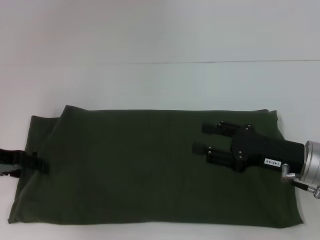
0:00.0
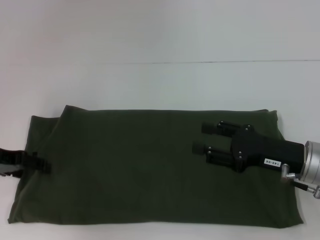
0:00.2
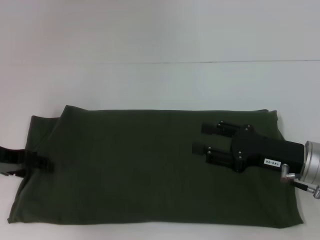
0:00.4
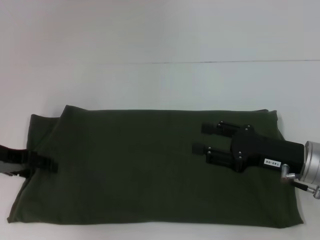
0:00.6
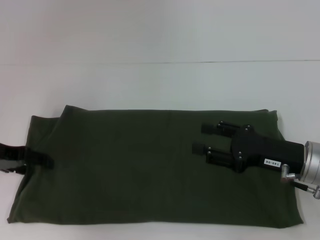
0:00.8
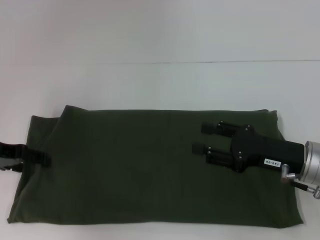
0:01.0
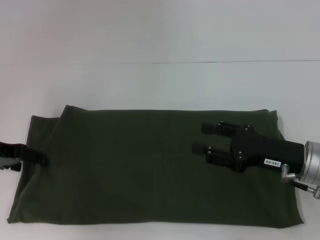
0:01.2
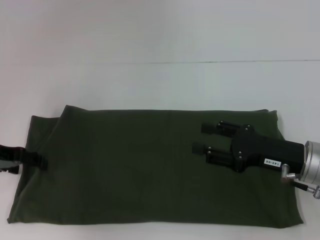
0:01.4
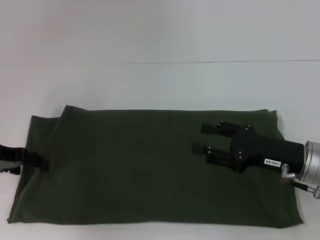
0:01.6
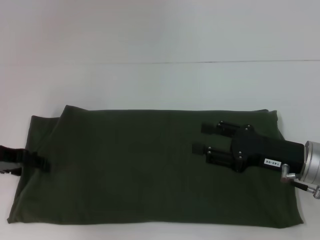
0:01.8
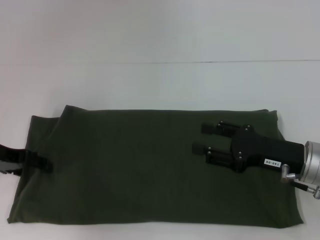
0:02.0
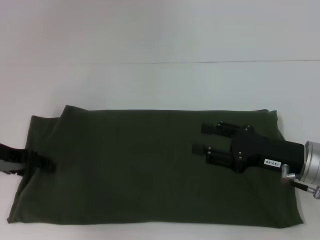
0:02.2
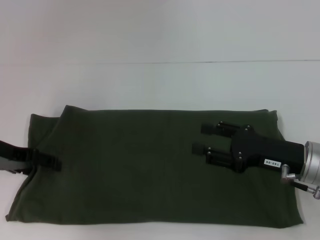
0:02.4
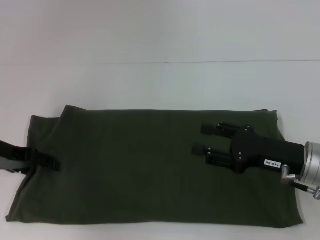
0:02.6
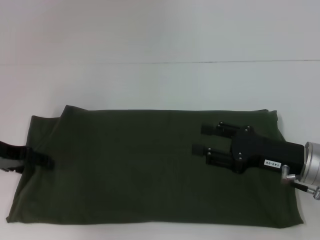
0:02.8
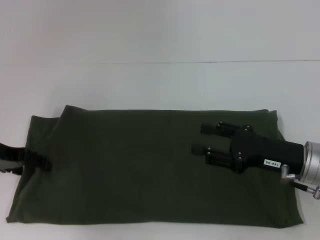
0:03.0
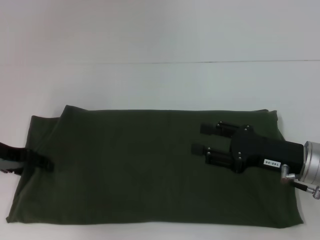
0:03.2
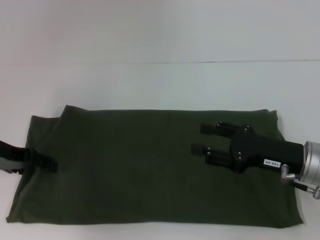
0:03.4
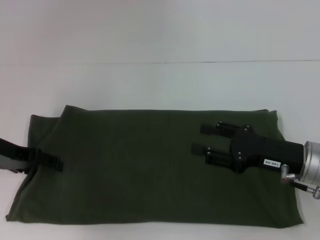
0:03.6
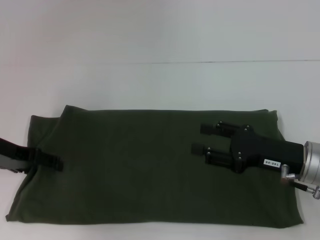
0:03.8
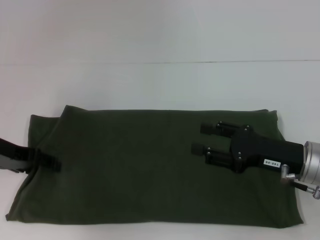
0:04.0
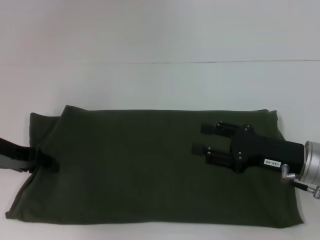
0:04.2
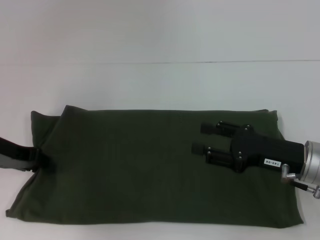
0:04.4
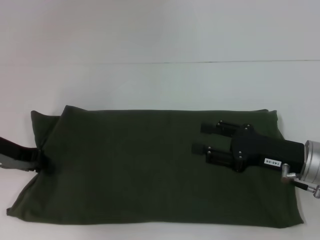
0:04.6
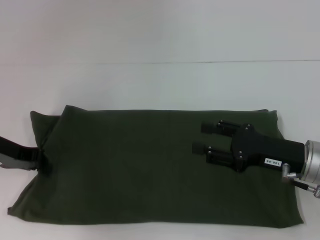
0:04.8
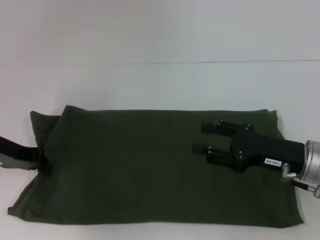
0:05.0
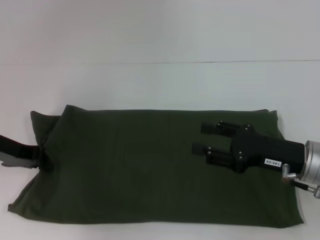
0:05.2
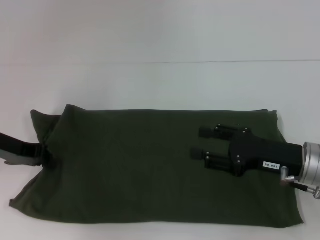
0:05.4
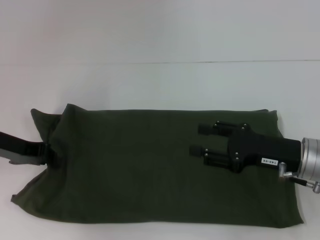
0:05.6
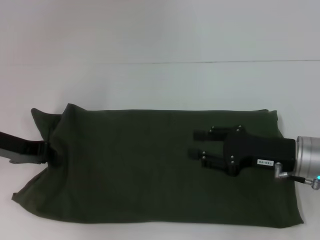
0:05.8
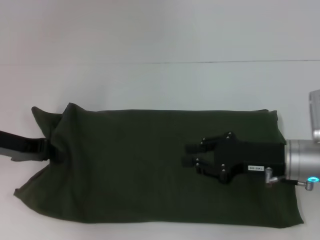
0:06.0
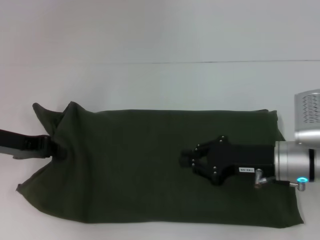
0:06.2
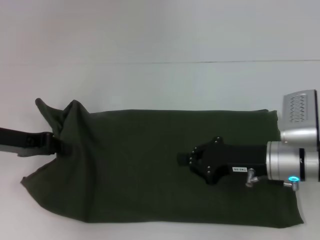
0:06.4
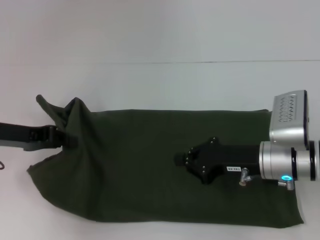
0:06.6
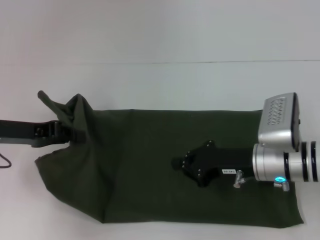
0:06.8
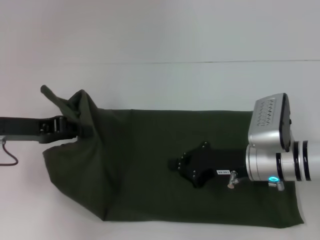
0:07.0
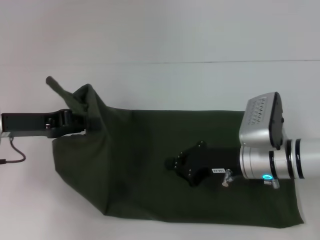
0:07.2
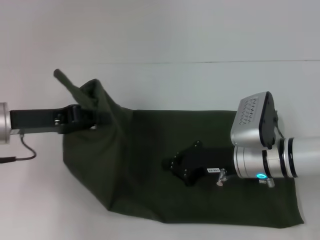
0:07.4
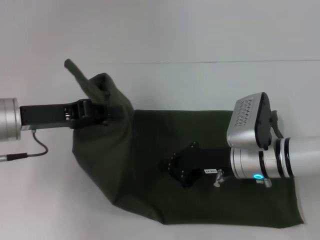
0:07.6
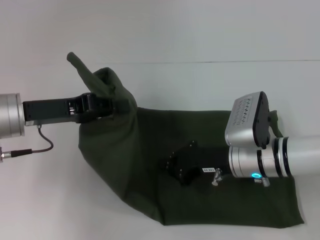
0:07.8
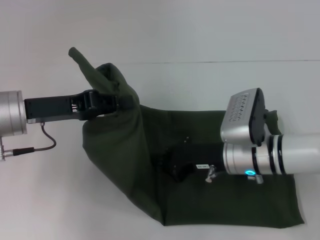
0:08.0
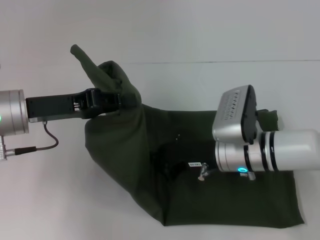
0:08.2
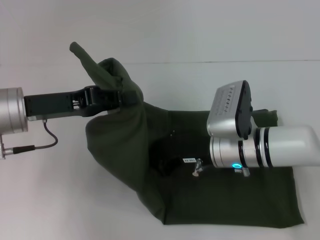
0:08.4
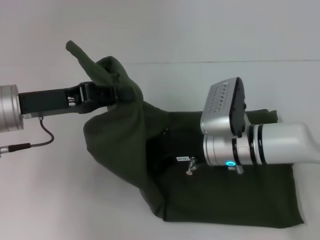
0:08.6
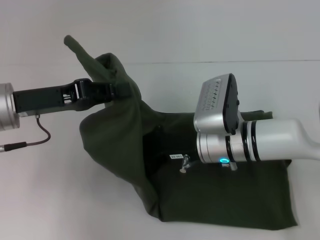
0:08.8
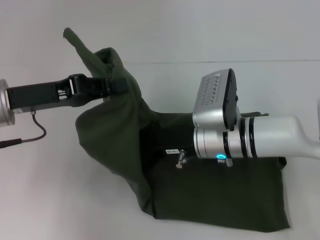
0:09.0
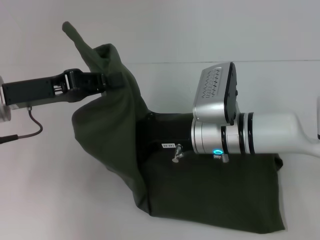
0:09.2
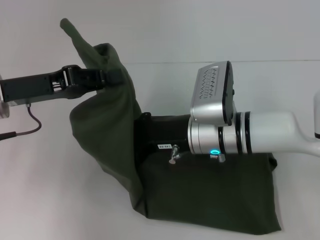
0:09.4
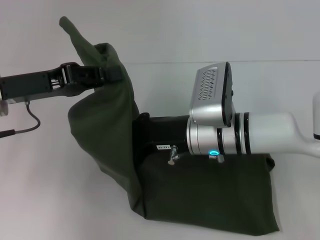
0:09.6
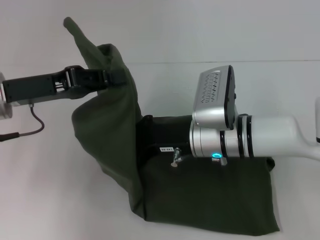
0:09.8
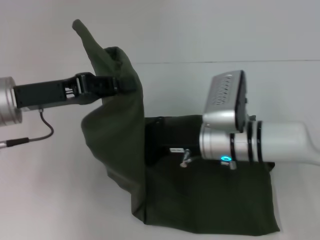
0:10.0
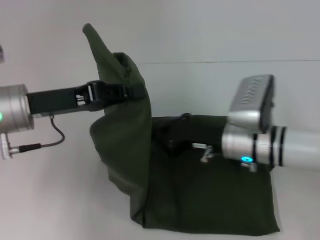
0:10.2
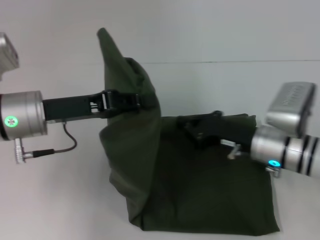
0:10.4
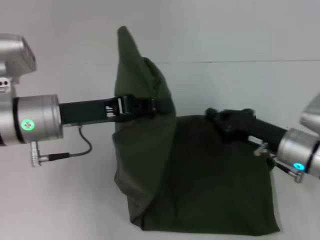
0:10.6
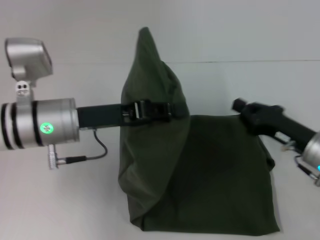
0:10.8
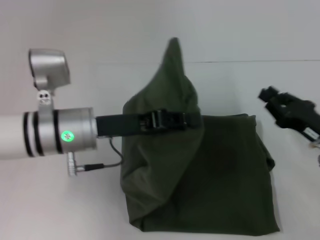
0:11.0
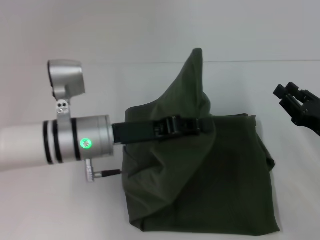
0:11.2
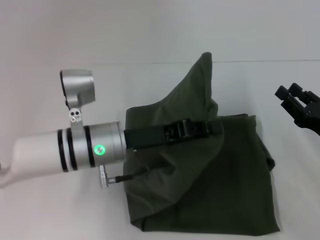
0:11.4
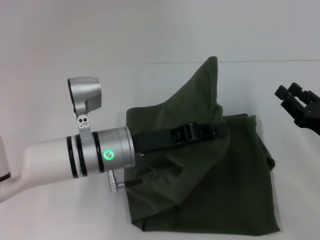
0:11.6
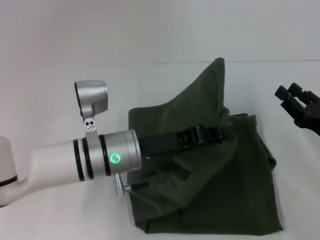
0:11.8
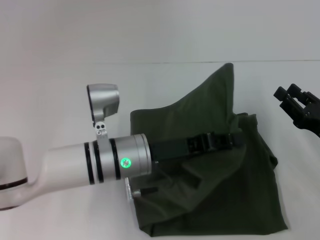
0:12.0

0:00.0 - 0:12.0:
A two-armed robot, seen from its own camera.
0:00.0 - 0:01.6: The two grippers keep their place.
0:01.6 - 0:03.0: Neither gripper changes place.
0:03.0 - 0:04.4: Both grippers stay put.
0:04.4 - 0:06.0: The left gripper closes its fingers.
0:06.0 - 0:07.6: The left gripper goes some 5 cm to the right. The right gripper heads to the left, covering about 5 cm, and closes.
0:07.6 - 0:09.0: The right gripper moves to the left, roughly 5 cm.
0:09.0 - 0:10.4: The right gripper travels to the right by roughly 10 cm.
0:10.4 - 0:12.0: The left gripper heads to the right and downward, covering approximately 15 cm, while the right gripper travels to the right and backward by about 15 cm, and opens.

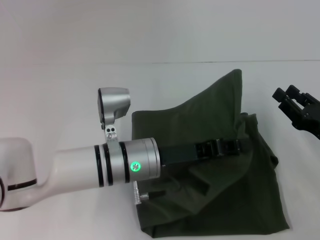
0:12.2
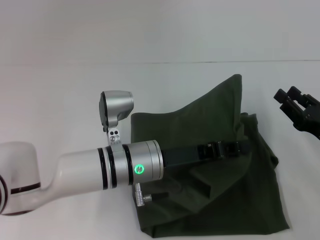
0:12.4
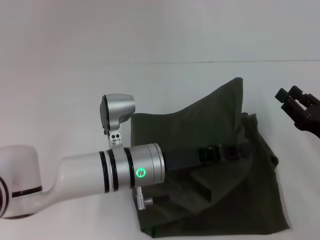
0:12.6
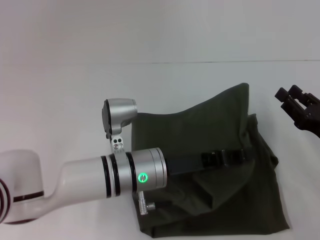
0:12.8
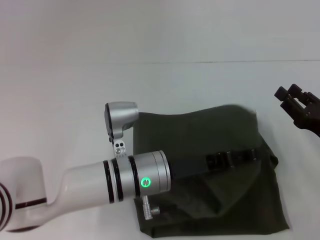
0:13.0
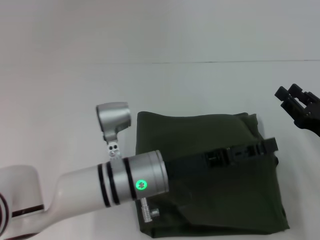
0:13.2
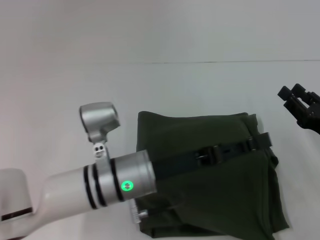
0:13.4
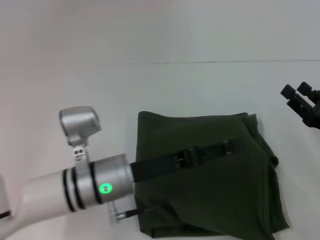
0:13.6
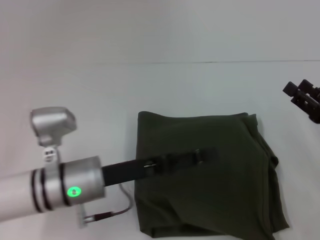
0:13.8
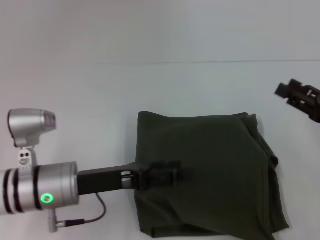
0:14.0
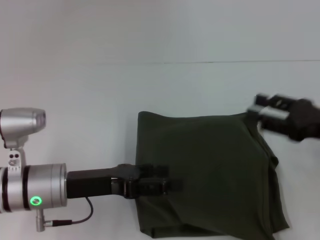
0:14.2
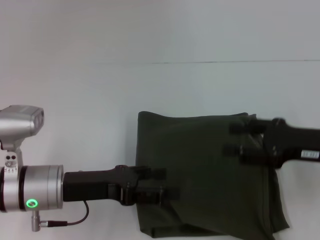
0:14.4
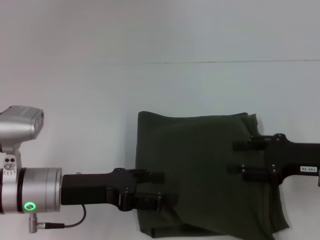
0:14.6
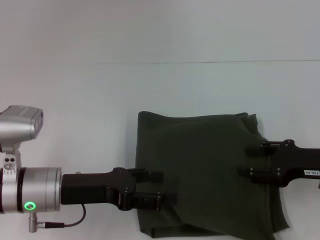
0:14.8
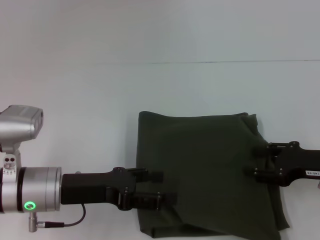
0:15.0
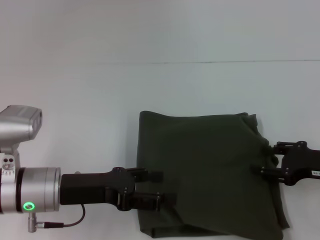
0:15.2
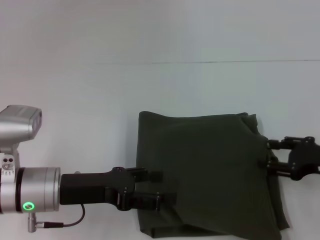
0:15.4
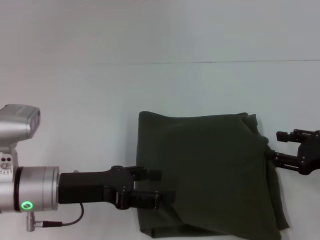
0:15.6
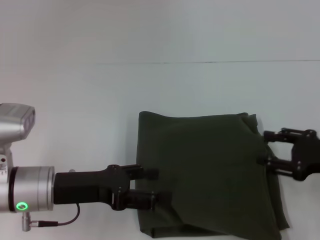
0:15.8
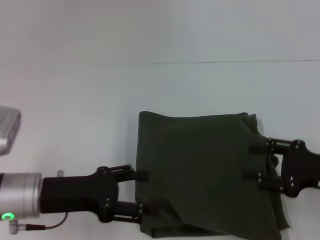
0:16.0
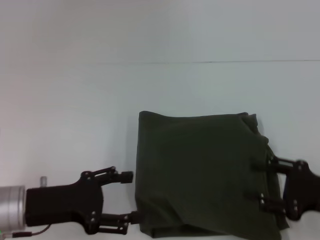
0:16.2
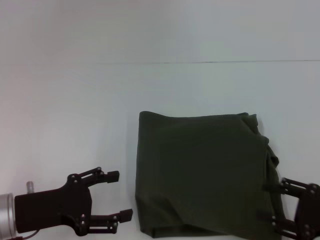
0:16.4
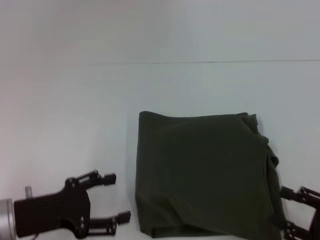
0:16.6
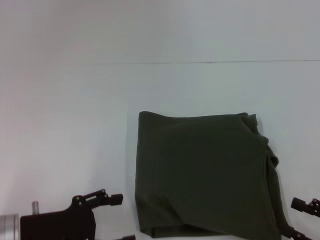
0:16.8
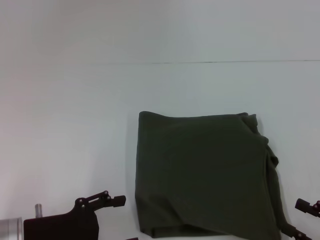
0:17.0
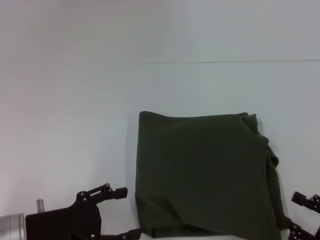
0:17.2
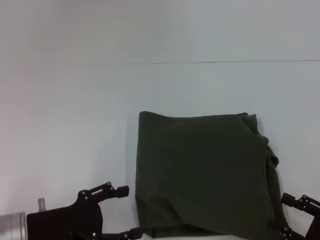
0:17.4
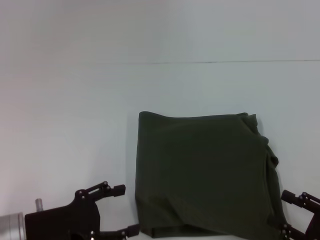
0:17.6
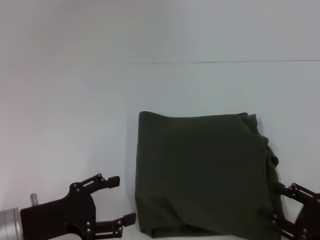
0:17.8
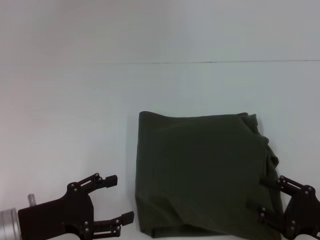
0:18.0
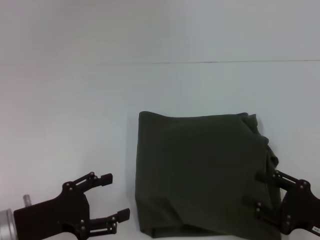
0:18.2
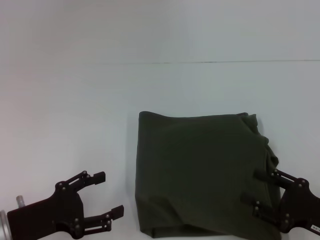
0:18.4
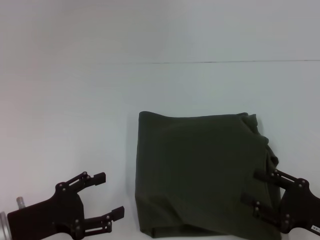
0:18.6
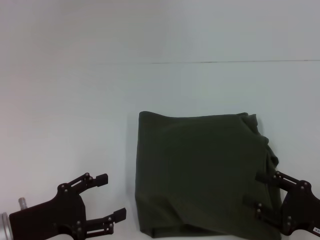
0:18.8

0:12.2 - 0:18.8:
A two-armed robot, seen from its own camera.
Step, 0:12.2 - 0:14.4: Fold the clothes with your left hand.
0:12.2 - 0:13.8: The left gripper shifts about 5 cm to the left, and opens its fingers.
0:13.8 - 0:15.4: The left gripper travels to the left by about 5 cm.
0:15.4 - 0:17.2: The right gripper shifts approximately 15 cm backward. Meanwhile the left gripper heads backward, covering about 5 cm.
0:17.2 - 0:18.8: The right gripper heads forward, covering roughly 5 cm.

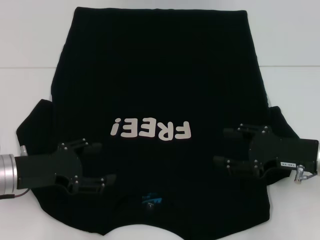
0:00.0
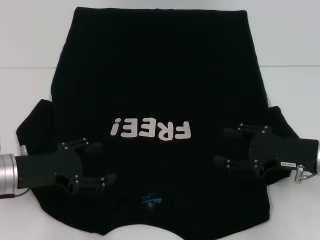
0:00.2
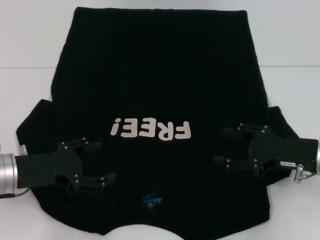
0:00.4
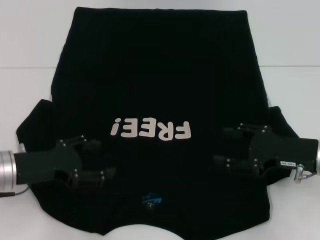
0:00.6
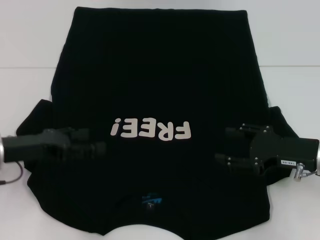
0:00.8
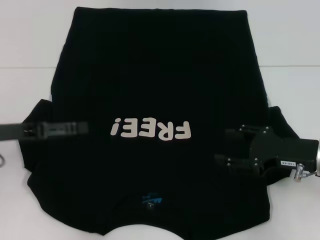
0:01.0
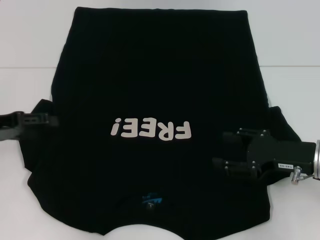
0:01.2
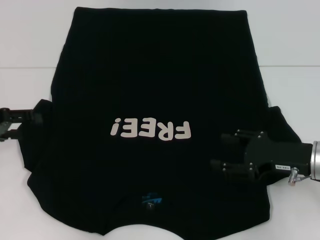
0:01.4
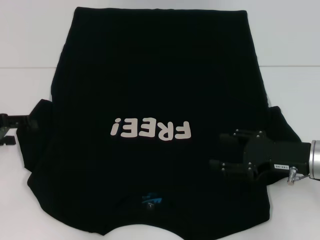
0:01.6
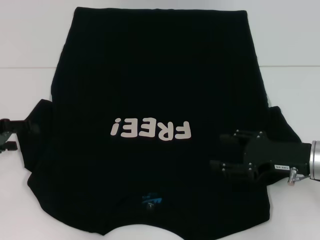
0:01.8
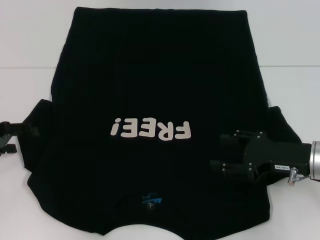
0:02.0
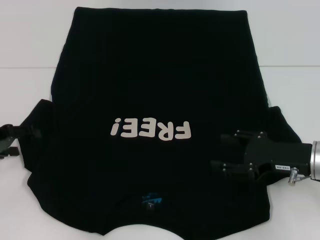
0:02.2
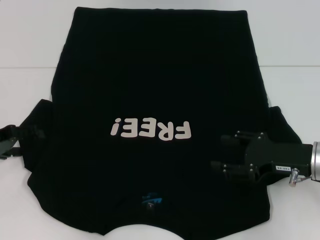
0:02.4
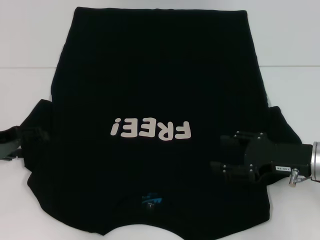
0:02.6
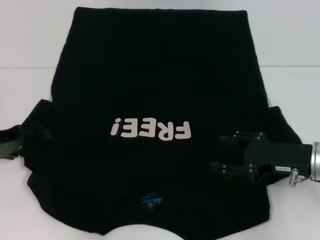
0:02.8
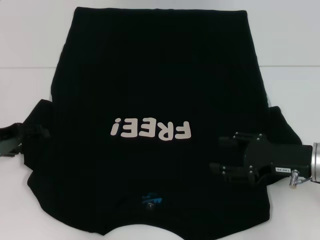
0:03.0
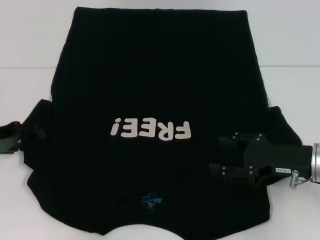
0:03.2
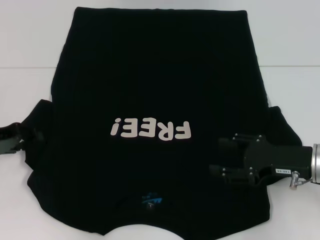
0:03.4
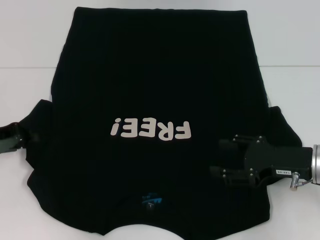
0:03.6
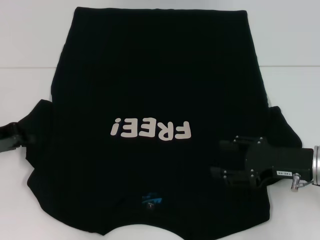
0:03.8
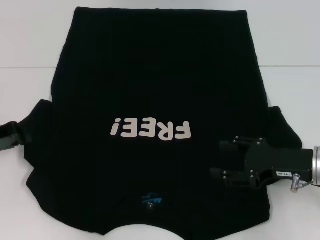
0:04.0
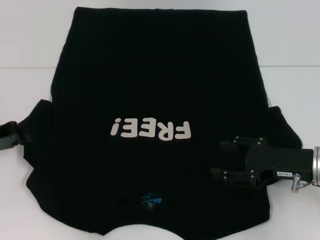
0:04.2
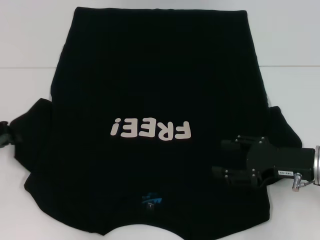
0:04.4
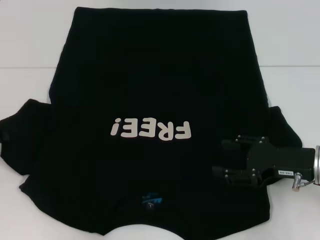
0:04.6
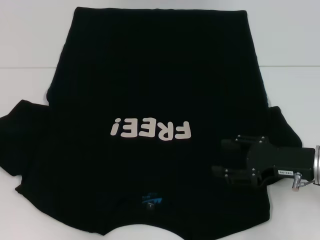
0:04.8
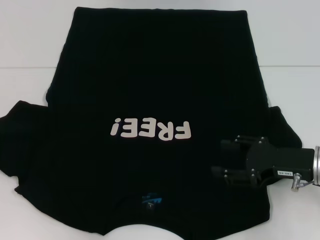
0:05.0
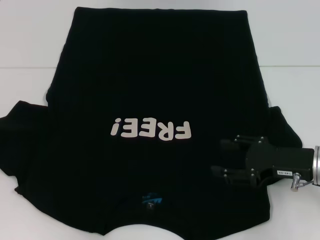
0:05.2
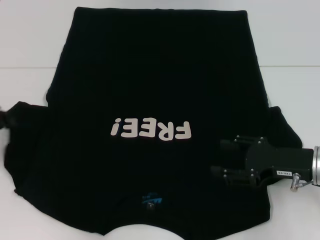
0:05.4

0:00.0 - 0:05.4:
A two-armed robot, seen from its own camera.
0:00.0 - 0:01.4: The left gripper goes approximately 10 cm to the left, upward and forward.
0:01.4 - 0:02.8: The grippers stay close to where they were, moving slightly.
0:02.8 - 0:04.0: The left gripper closes.
0:04.0 - 0:05.4: The grippers make only small movements.
